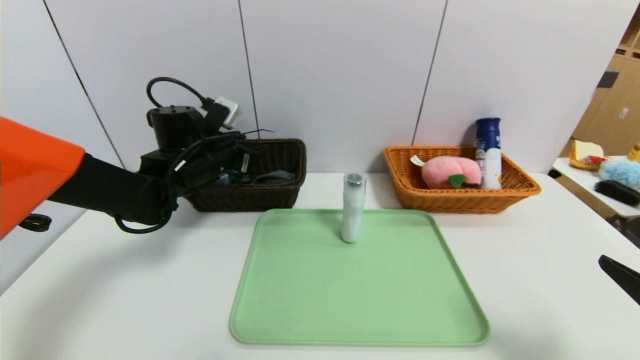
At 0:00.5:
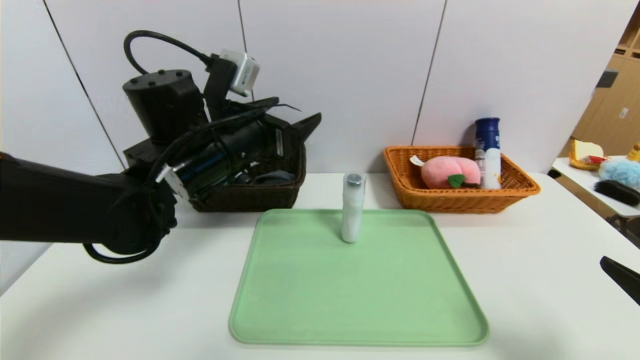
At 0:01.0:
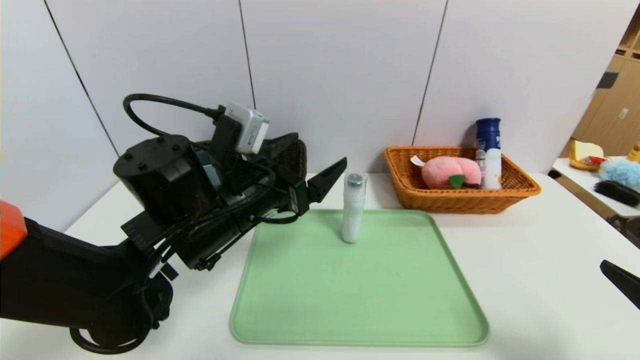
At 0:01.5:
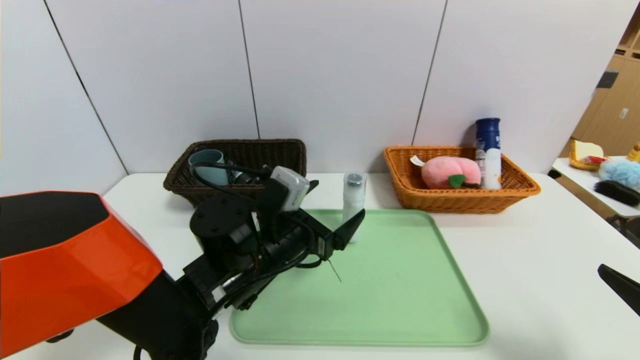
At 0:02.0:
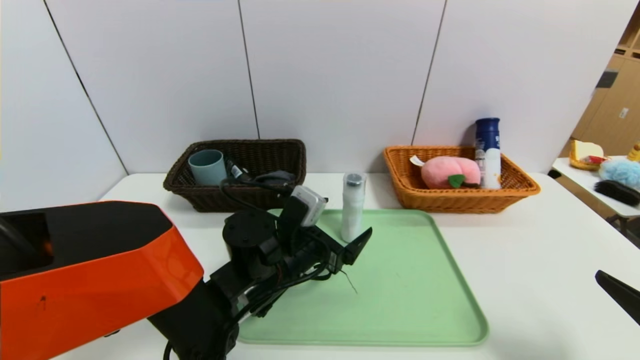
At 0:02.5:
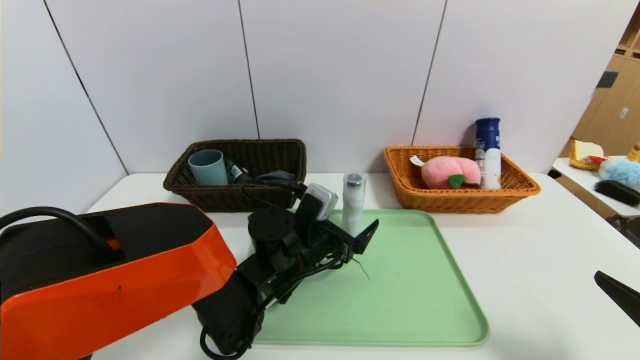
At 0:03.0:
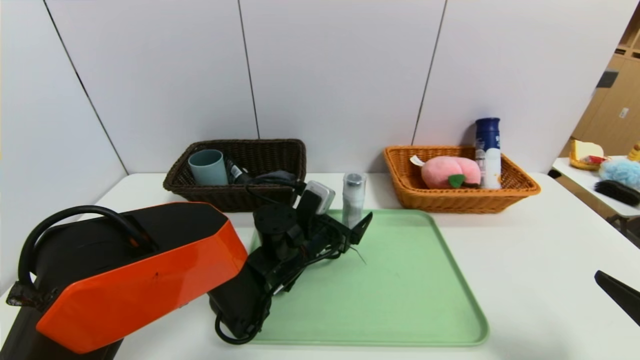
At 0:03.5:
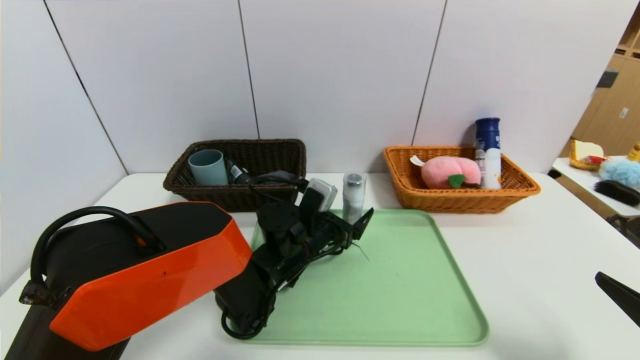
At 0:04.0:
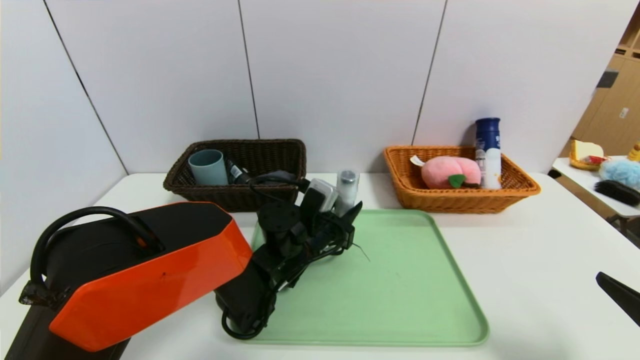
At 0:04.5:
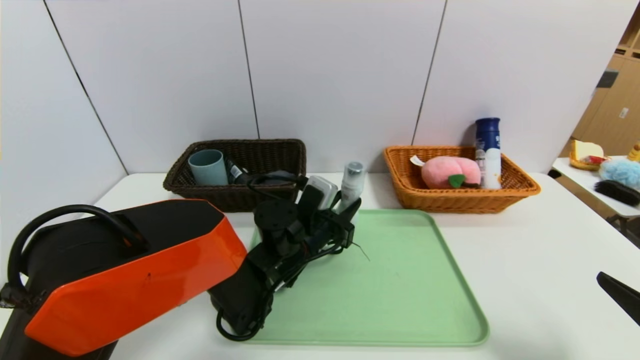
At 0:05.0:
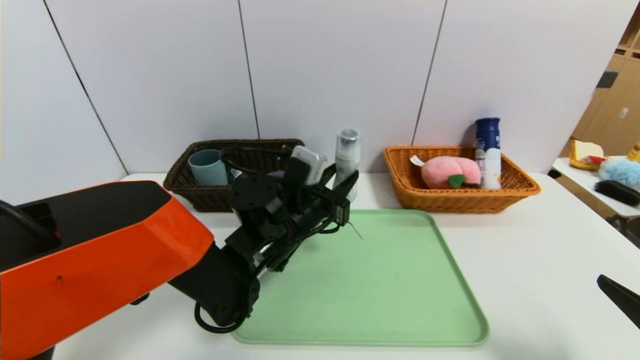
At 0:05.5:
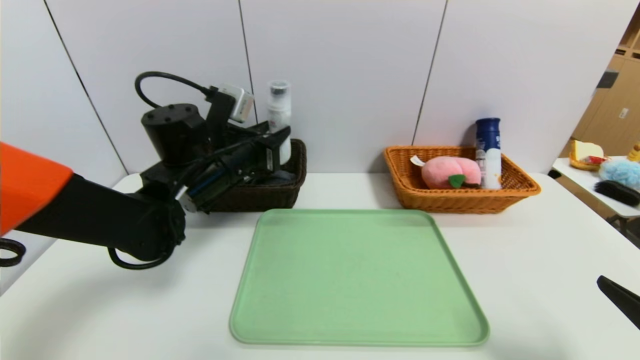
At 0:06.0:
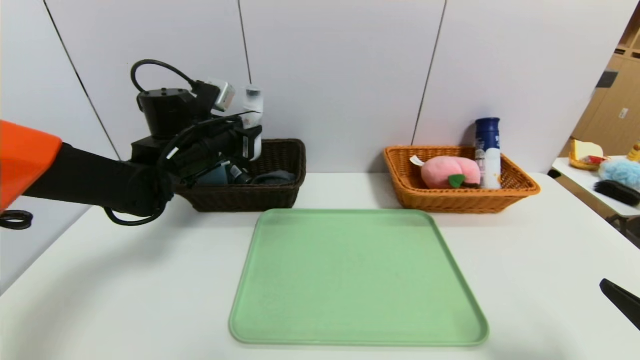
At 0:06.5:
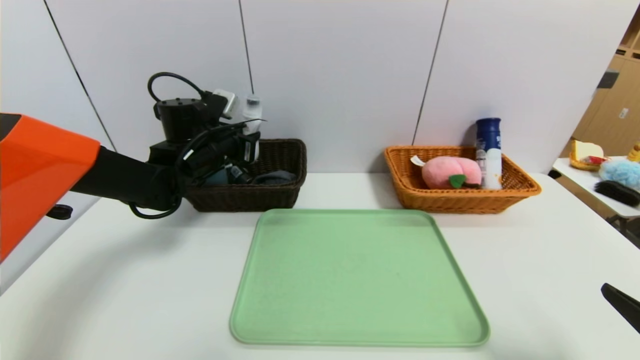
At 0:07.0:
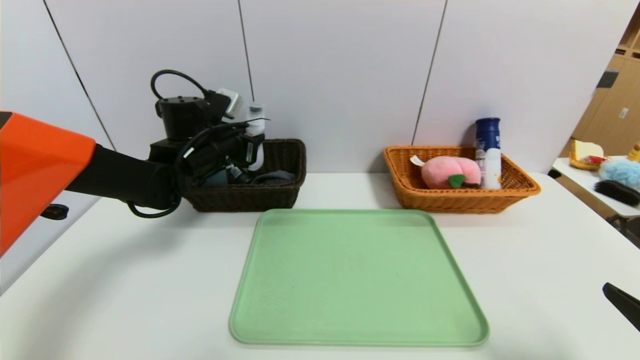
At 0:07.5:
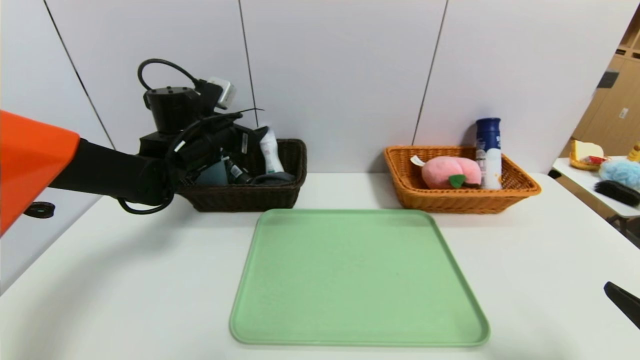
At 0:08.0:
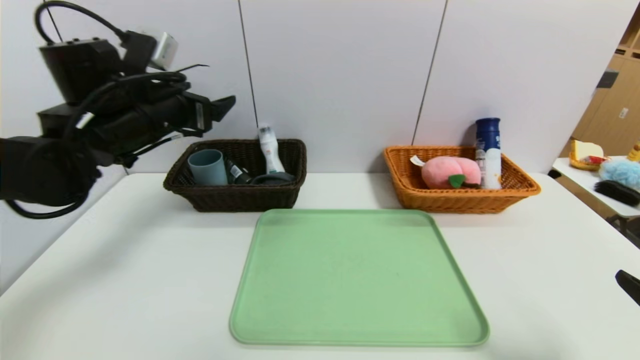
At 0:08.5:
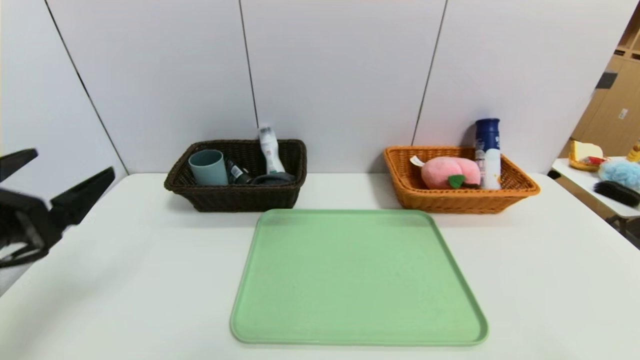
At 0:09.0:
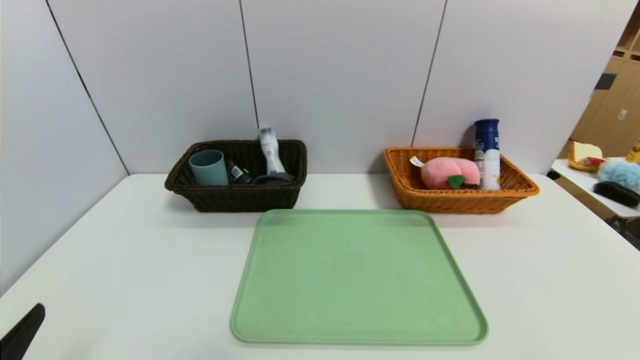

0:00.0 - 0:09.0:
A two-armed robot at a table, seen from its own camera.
Task of the whole recording: place the food in the right basket with the right gripper, and place the non food items in the left basket with the left gripper.
Step, 0:00.5 - 0:07.5: Grasp the washing liquid and put it in the left basket.
0:00.0 - 0:02.0: The left gripper goes some 20 cm to the right, backward and downward.
0:02.0 - 0:04.5: The left gripper moves approximately 5 cm, and closes.
0:04.5 - 0:07.0: The left gripper heads to the left, upward and forward, covering some 20 cm.
0:07.0 - 0:09.0: The left gripper moves backward, roughly 40 cm, and opens. Meanwhile the right gripper shifts roughly 10 cm backward.

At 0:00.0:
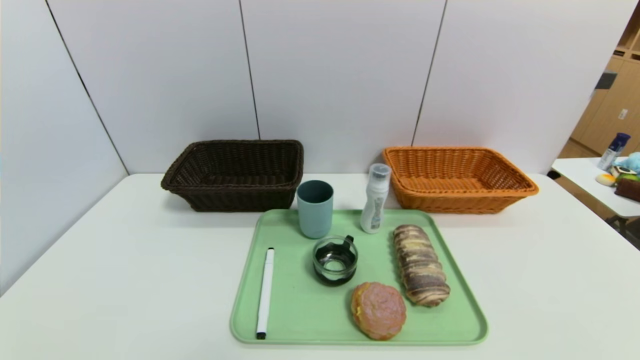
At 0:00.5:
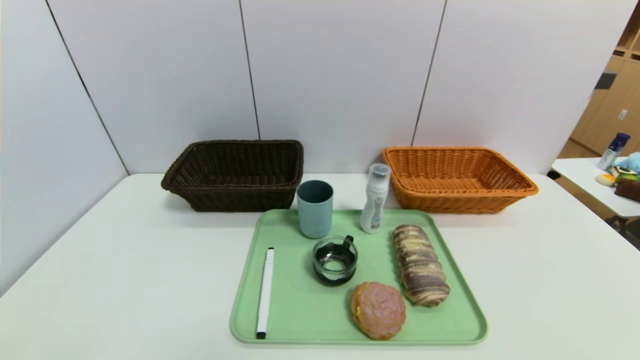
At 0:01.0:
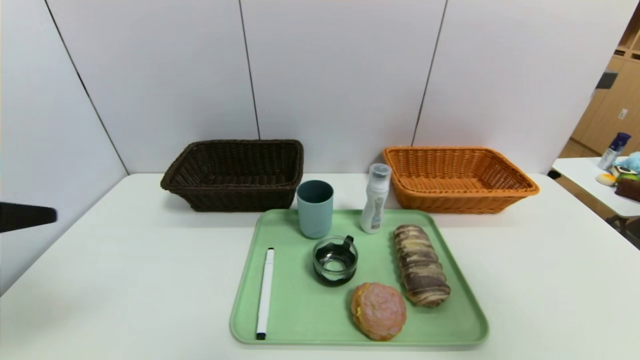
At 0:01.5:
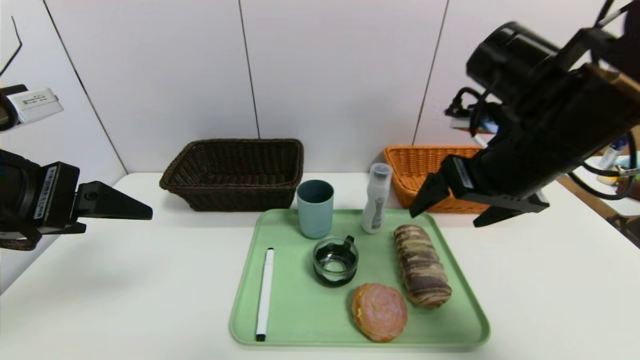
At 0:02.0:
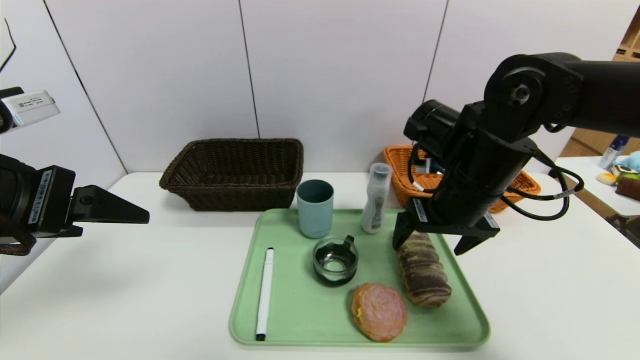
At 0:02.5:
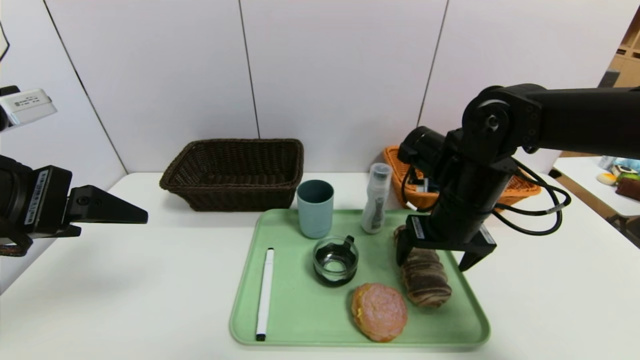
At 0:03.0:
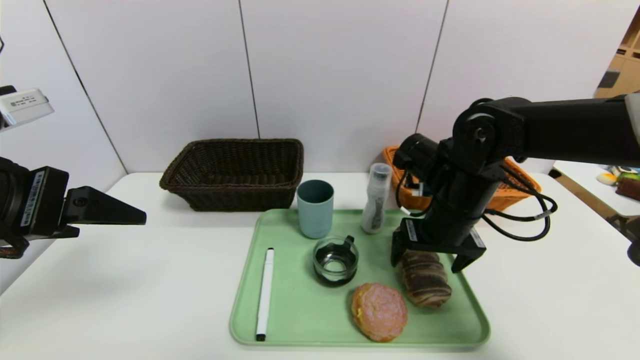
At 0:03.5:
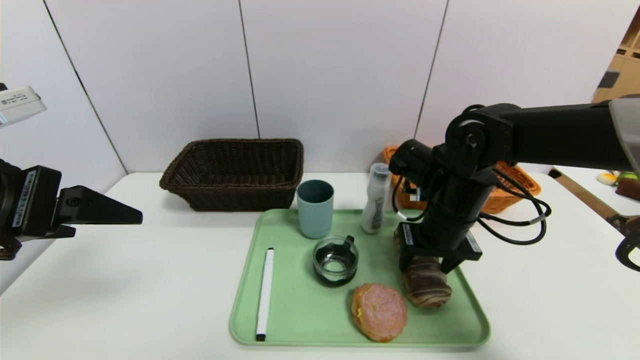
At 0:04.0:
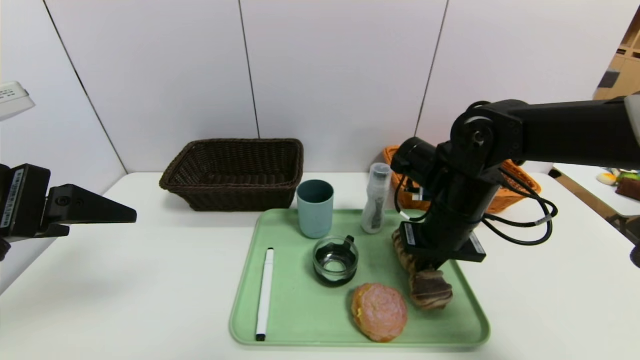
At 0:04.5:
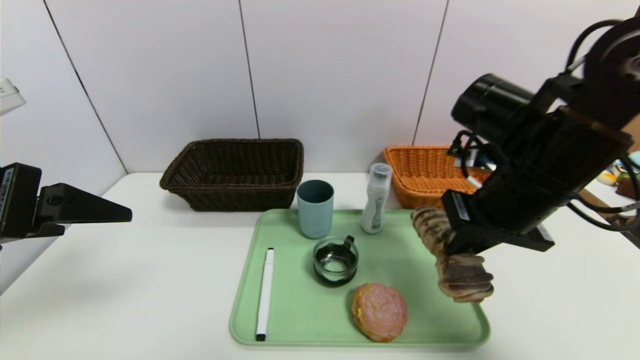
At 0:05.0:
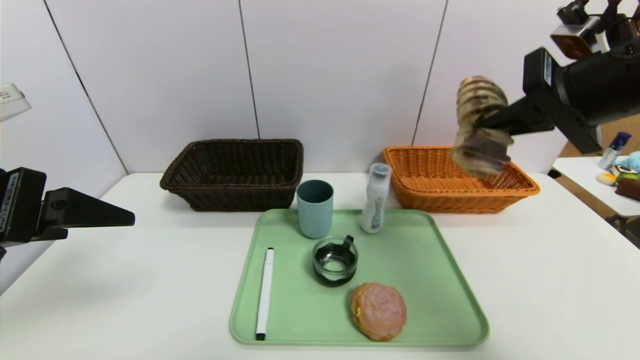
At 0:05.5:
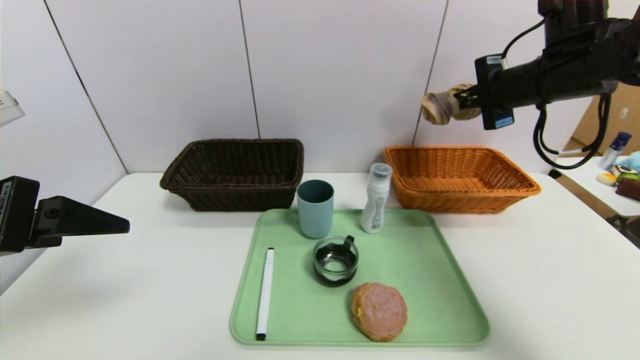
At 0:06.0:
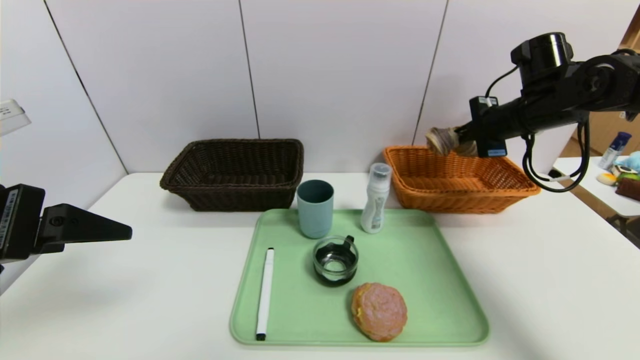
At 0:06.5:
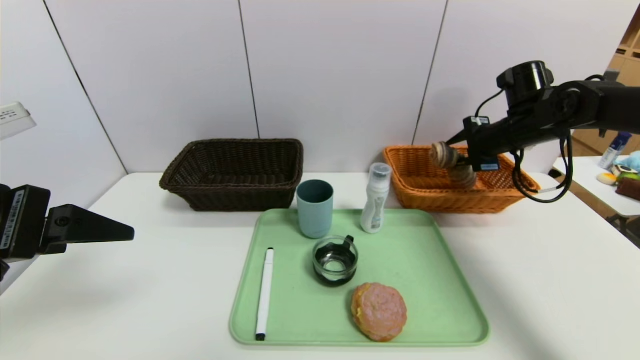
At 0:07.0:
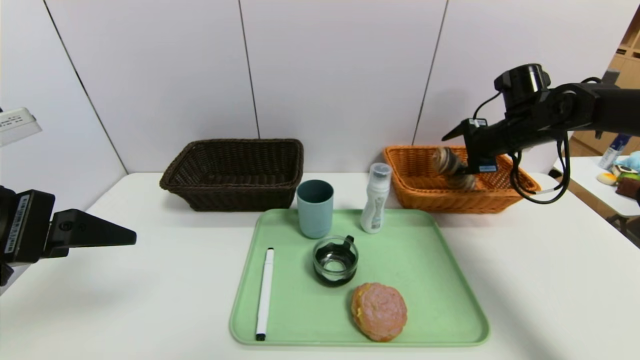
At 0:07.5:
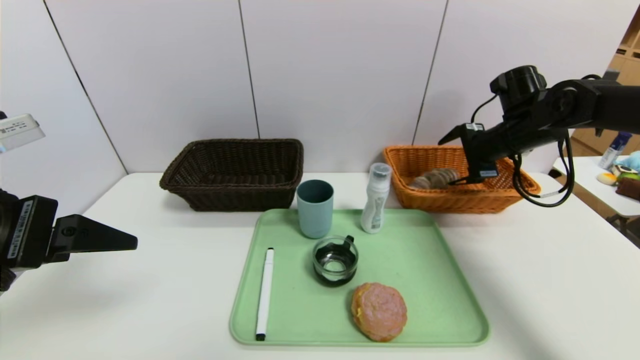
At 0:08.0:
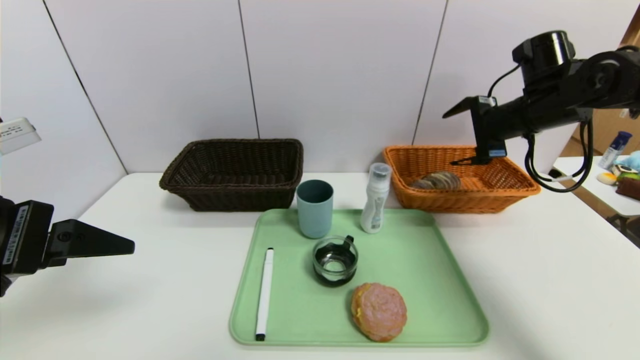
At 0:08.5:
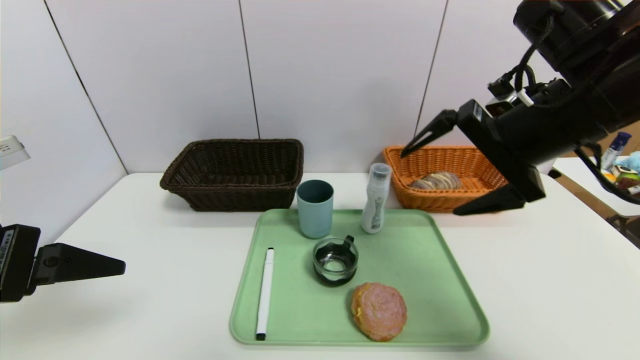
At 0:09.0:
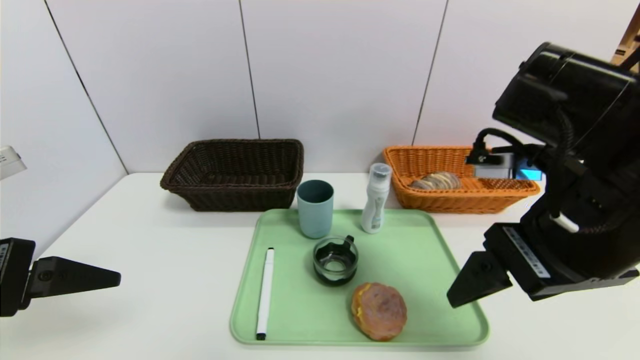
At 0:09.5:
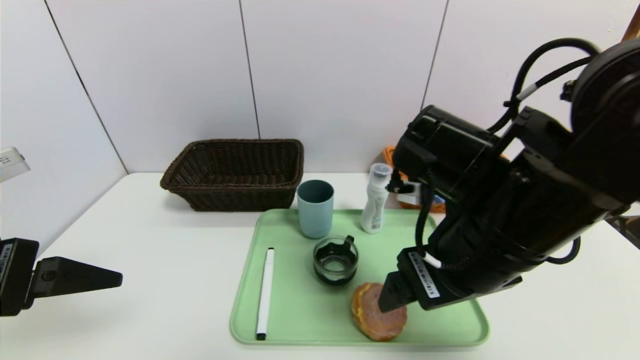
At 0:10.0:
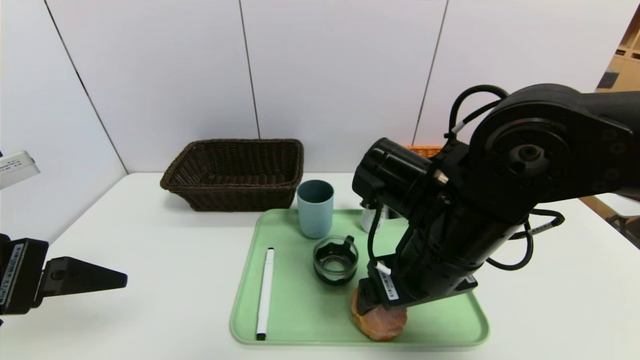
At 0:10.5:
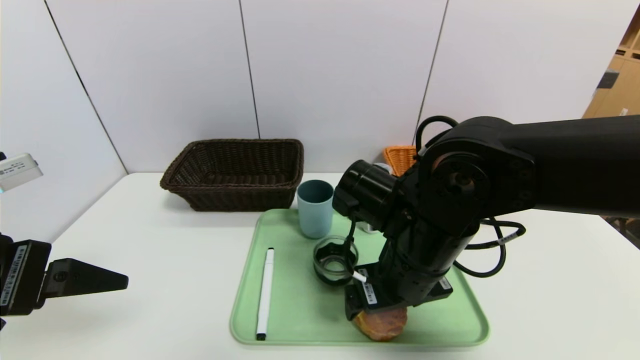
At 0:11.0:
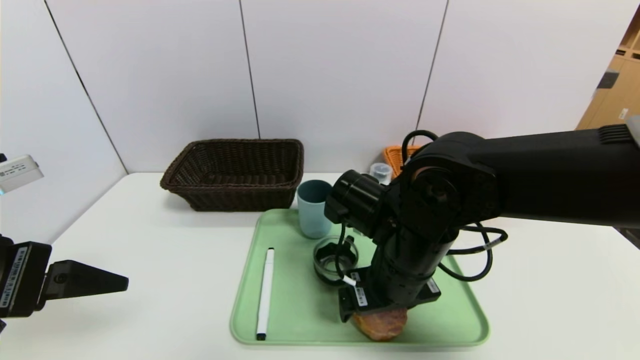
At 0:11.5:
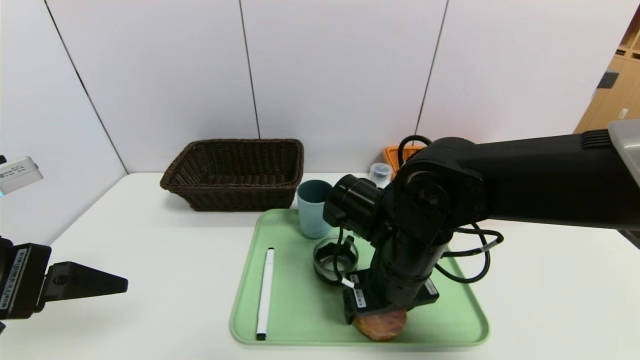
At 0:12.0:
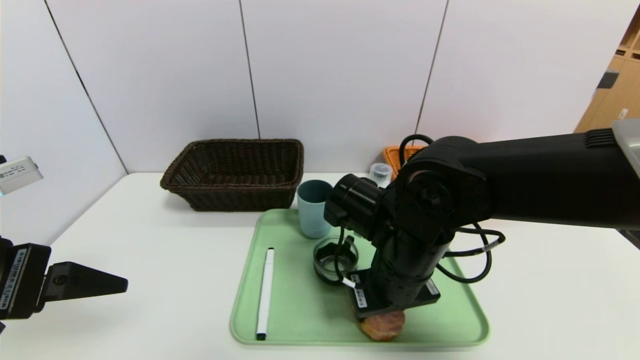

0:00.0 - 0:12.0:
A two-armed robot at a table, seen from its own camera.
Task of the whole recording: place the food in the right basket with the right gripper, and place the non food items in the left basket with the left gripper.
Step, 0:00.0 - 0:07.5: Grasp the long bread and put it in the right basket.
0:00.0 - 0:02.0: The left gripper moves upward and forward, about 30 cm. The right gripper heads forward, to the left and upward, covering roughly 40 cm.
0:02.0 - 0:04.0: The right gripper closes up.
0:04.0 - 0:06.0: The right gripper heads to the right, forward and upward, covering about 20 cm.
0:06.0 - 0:08.0: The right gripper opens.
0:08.0 - 0:10.0: The right gripper shifts some 25 cm to the left and backward.
0:10.0 - 0:12.0: The right gripper moves about 5 cm, and closes.
